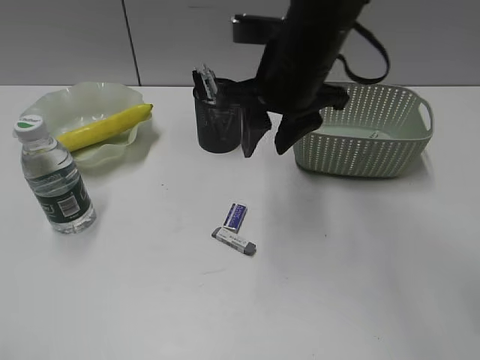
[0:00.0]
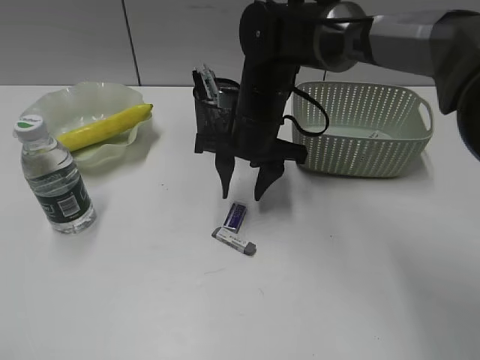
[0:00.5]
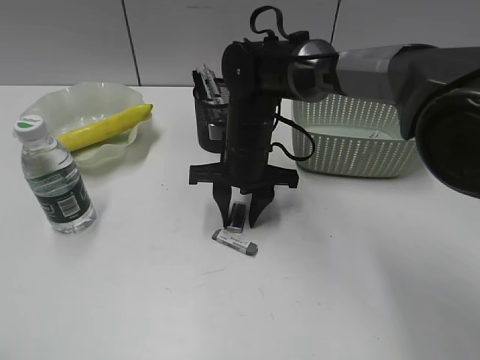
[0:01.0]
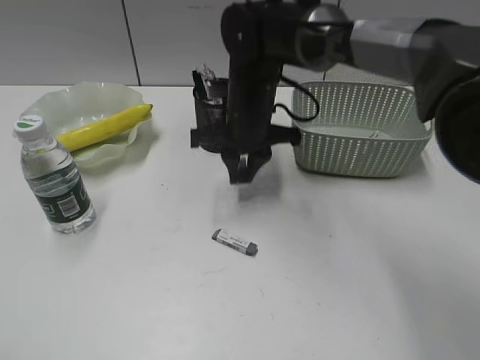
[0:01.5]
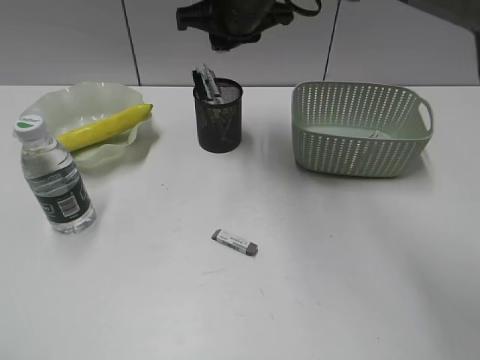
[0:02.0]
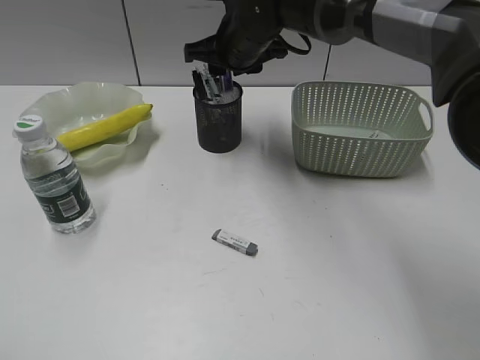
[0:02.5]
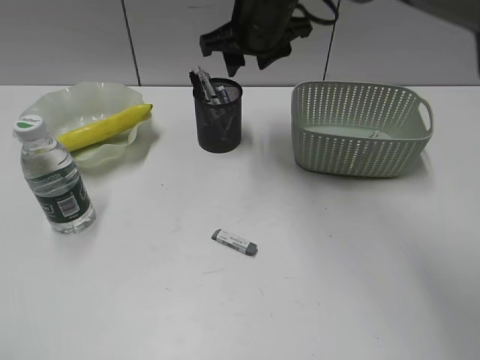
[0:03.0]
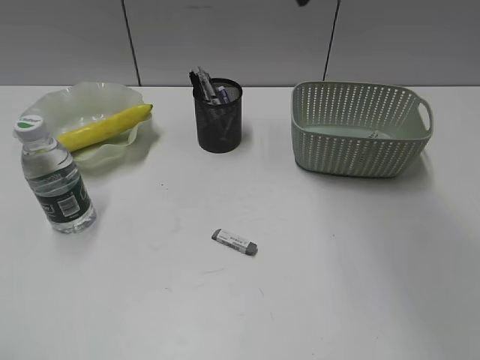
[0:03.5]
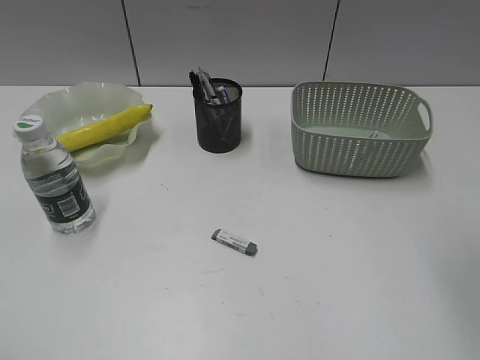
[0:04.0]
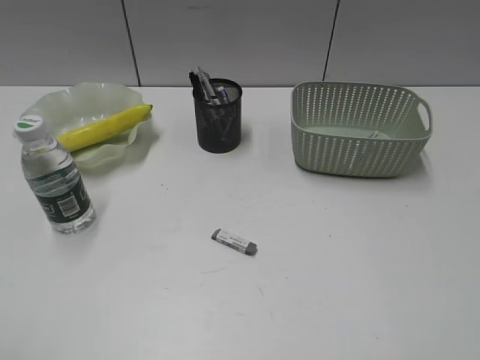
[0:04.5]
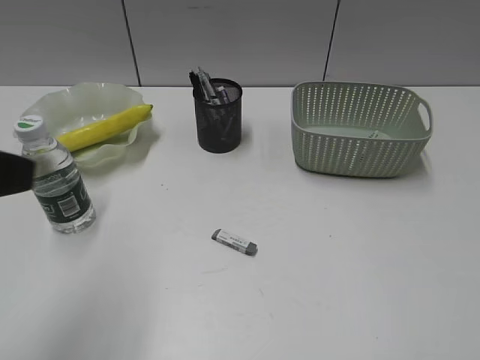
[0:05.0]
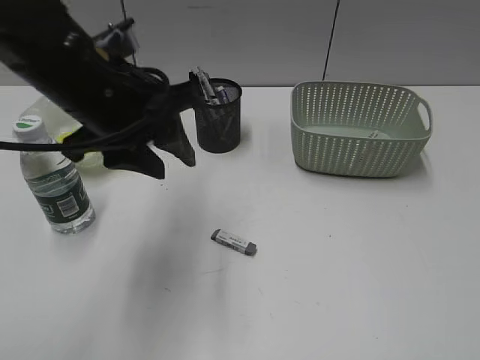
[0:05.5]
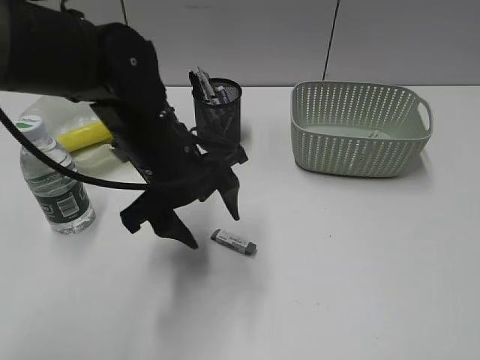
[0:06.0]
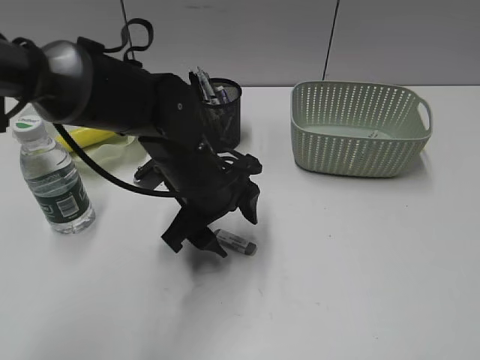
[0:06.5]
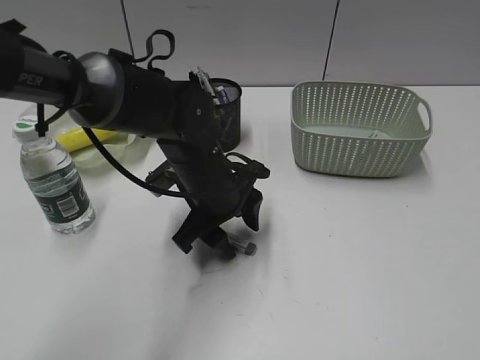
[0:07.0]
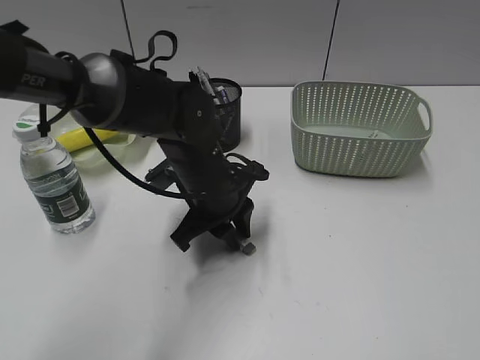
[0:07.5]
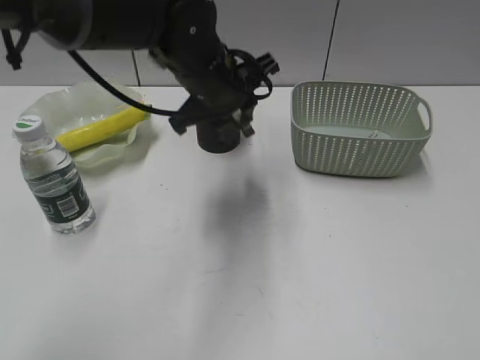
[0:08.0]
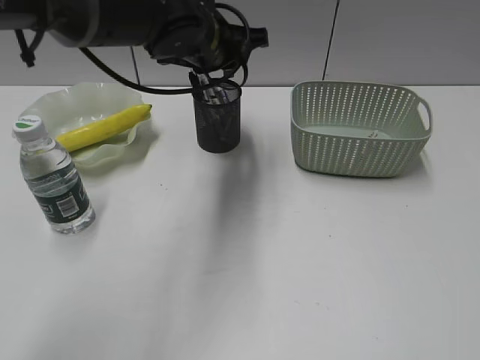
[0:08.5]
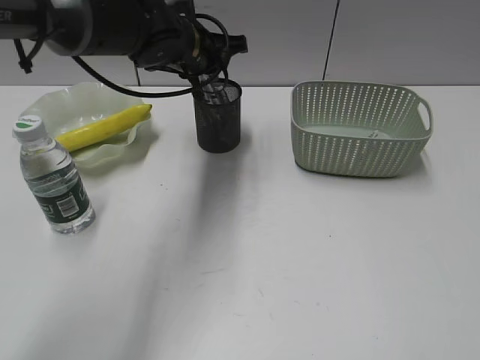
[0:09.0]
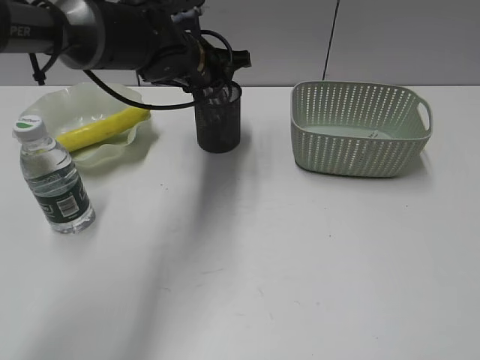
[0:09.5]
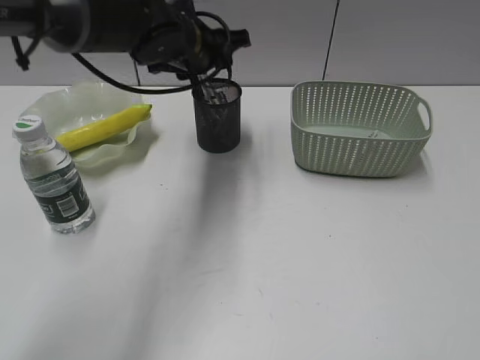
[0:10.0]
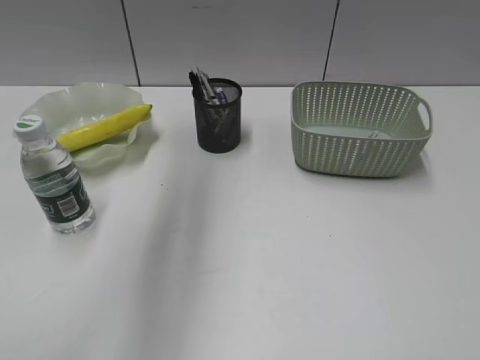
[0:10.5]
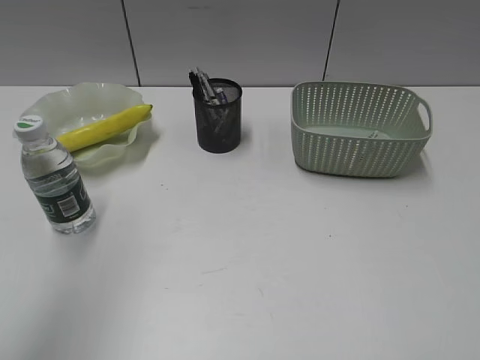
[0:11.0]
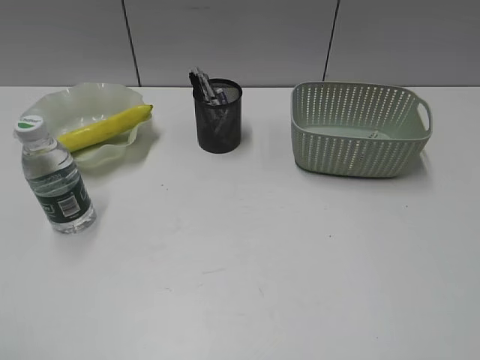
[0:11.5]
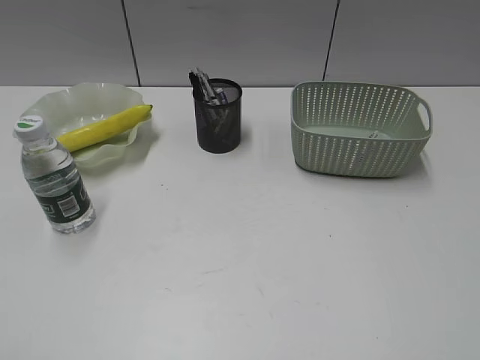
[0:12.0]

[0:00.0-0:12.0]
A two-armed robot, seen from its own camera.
Step, 0:01.5 to 0:02.5: Place the eraser in pen holder with right gripper.
Step, 0:03.0 to 0:07.5: Grasp the eraser with left gripper.
Step, 0:08.0 to 0:09.5: Place the eraser in pen holder with left gripper.
0:00.0 to 0:02.0: The right gripper moves forward and to the left, some 10 cm, moves roughly 15 cm downward and comes back, and closes up.
0:02.0 to 0:04.0: The right gripper travels backward, to the right and upward by some 35 cm, and opens.
0:04.0 to 0:06.0: The right gripper is displaced backward, to the right and downward by some 20 cm. The left gripper travels forward and to the right by some 40 cm, and opens.
0:06.0 to 0:08.0: The left gripper goes some 10 cm forward, and closes.
0:08.0 to 0:10.0: The left gripper shifts about 10 cm forward, and opens up.
0:10.0 to 0:12.0: The left gripper goes roughly 50 cm backward and to the left.

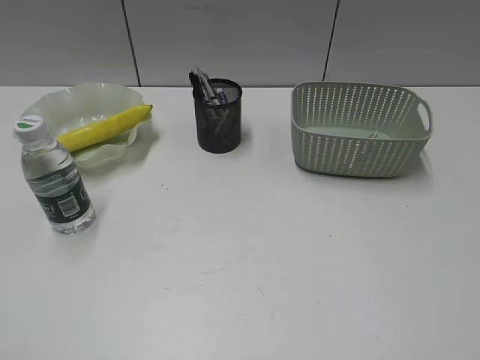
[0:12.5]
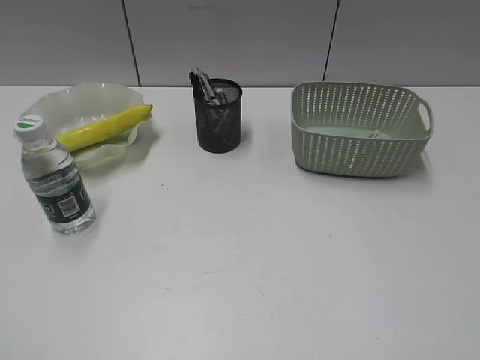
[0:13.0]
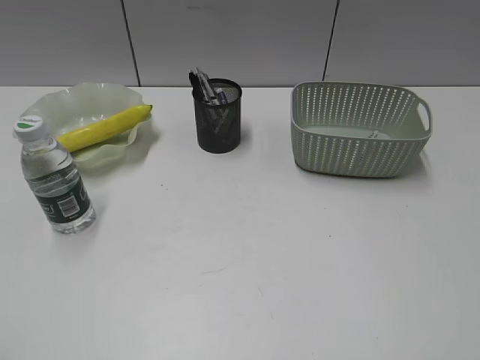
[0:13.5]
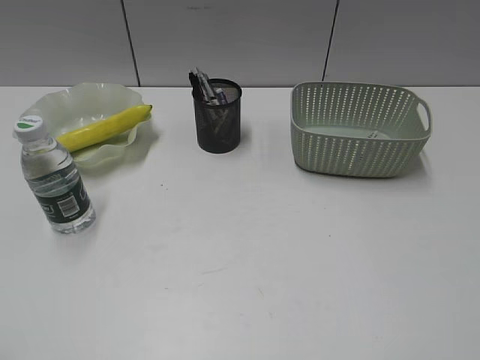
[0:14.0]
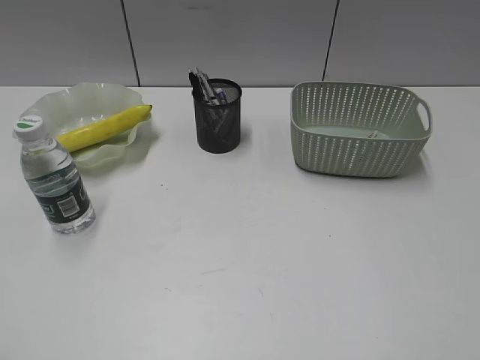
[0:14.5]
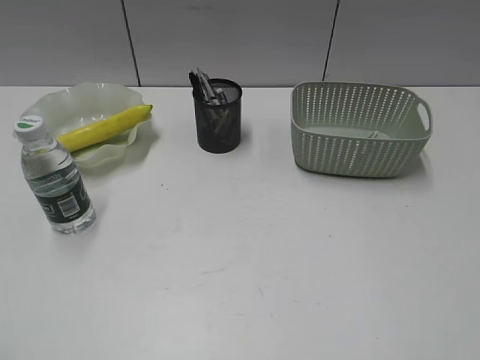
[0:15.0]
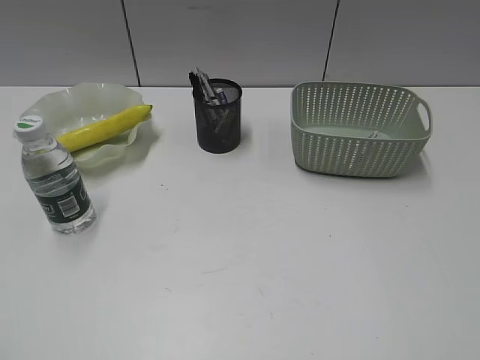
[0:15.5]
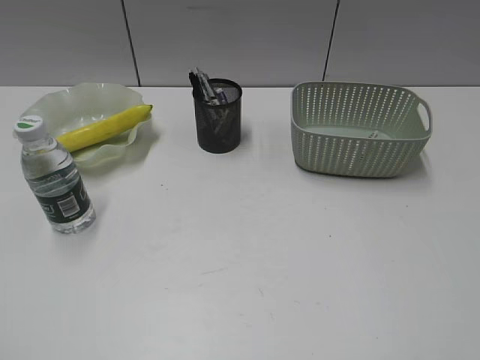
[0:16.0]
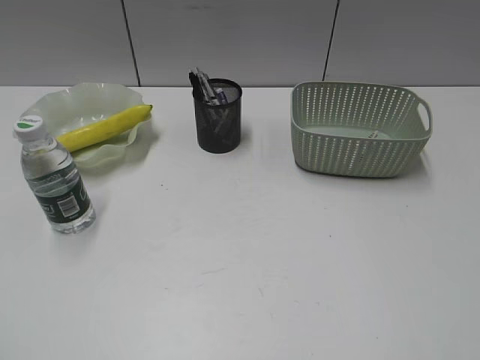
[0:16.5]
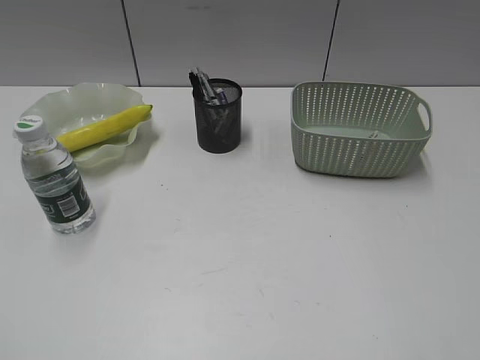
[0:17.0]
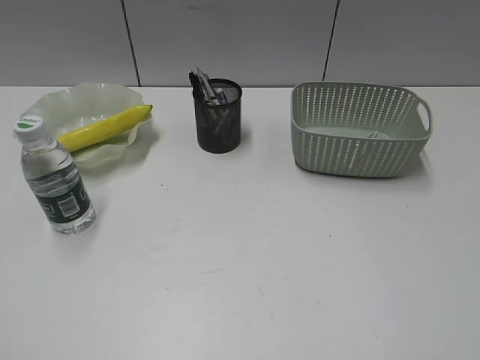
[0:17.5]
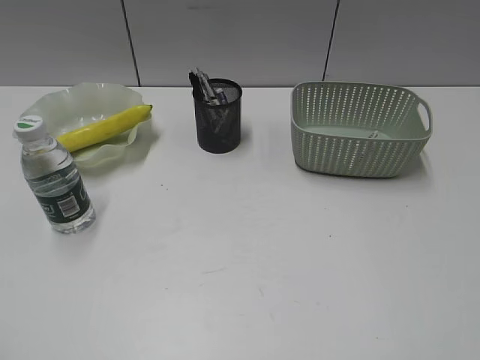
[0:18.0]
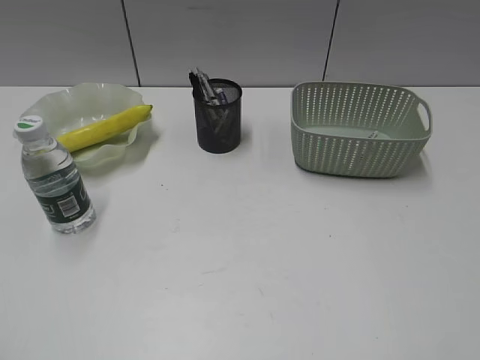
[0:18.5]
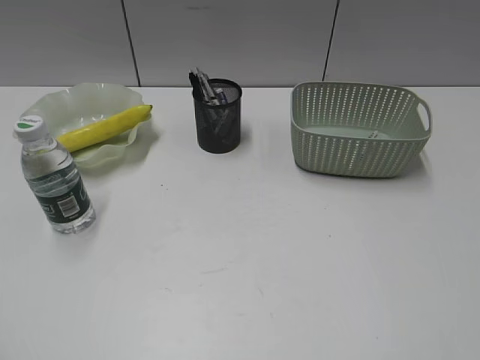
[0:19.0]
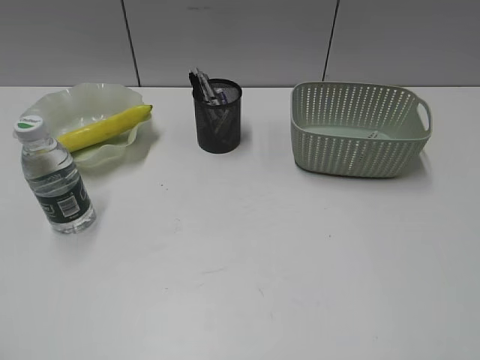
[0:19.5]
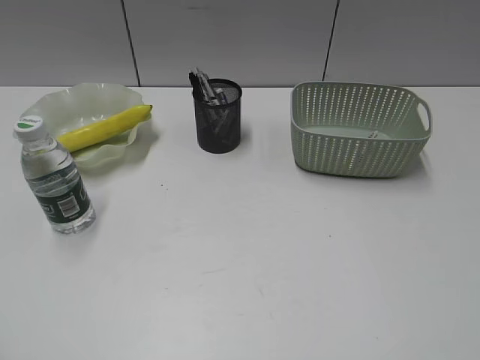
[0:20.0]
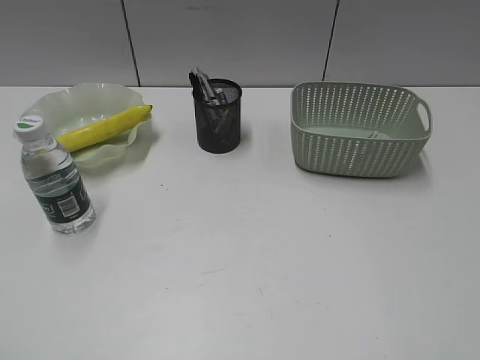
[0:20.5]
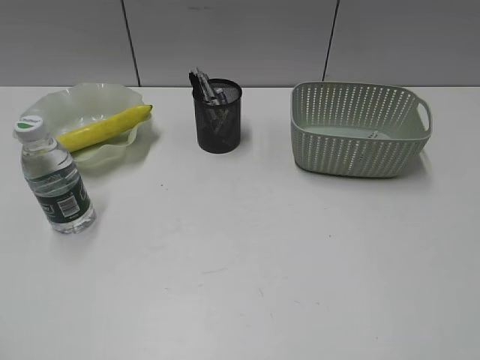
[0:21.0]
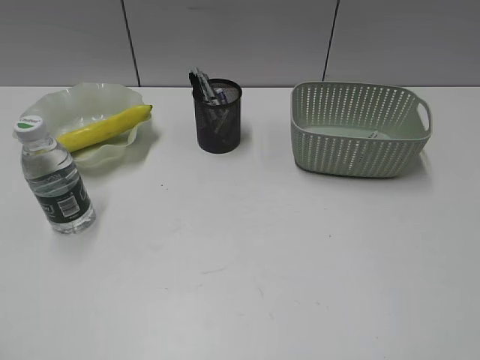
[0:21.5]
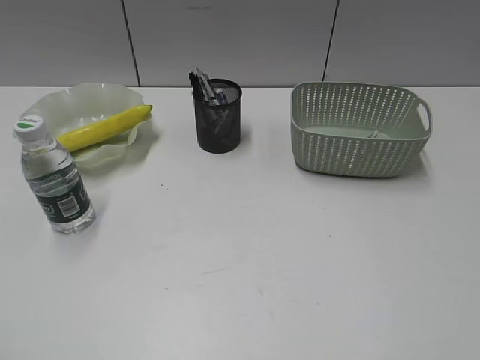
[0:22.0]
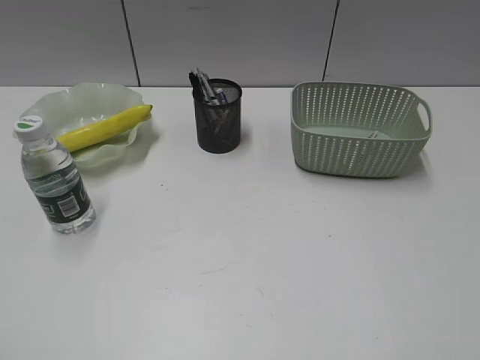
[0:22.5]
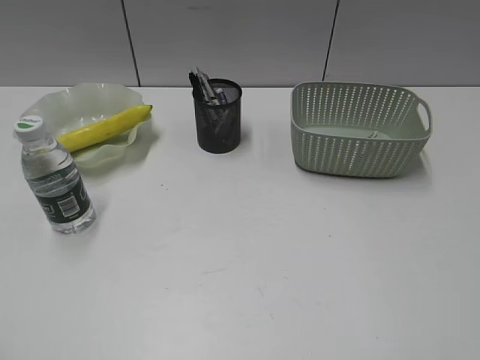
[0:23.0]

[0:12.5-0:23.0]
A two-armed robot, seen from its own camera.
0:16.5 to 0:23.0: The two grippers keep their place.

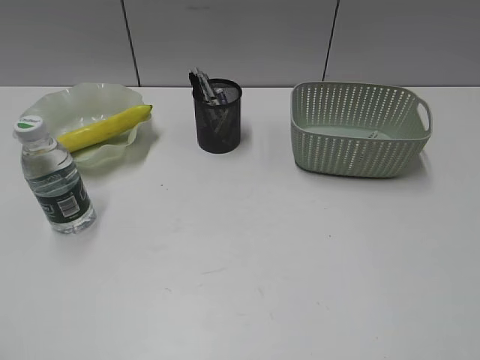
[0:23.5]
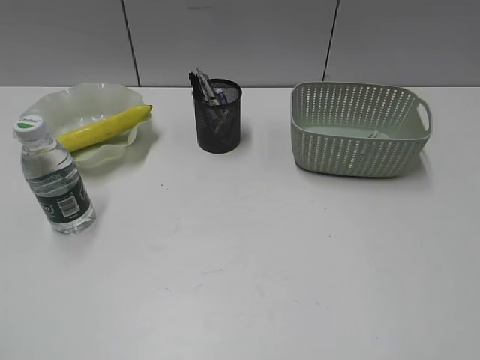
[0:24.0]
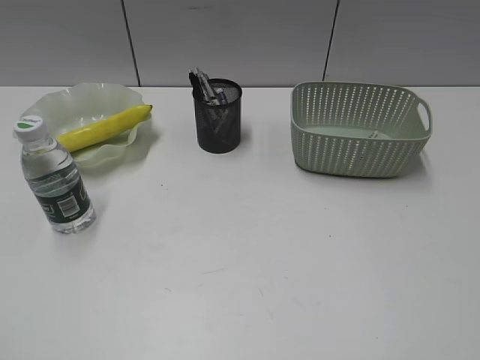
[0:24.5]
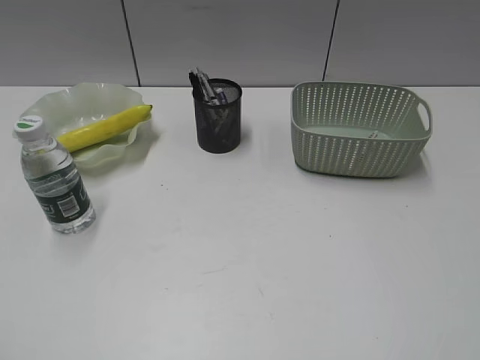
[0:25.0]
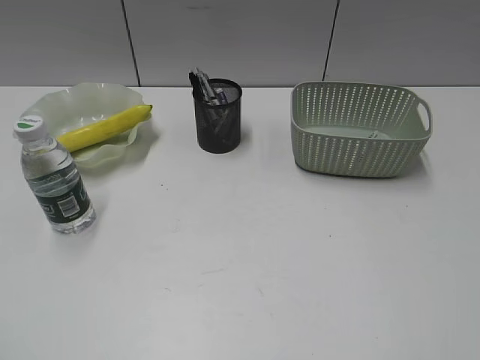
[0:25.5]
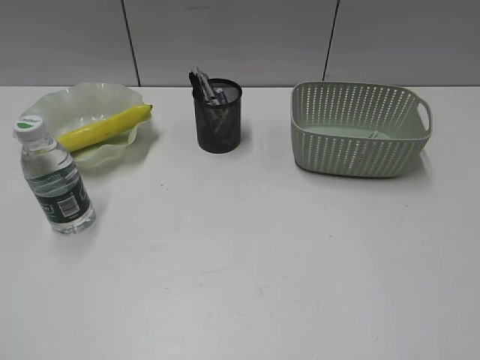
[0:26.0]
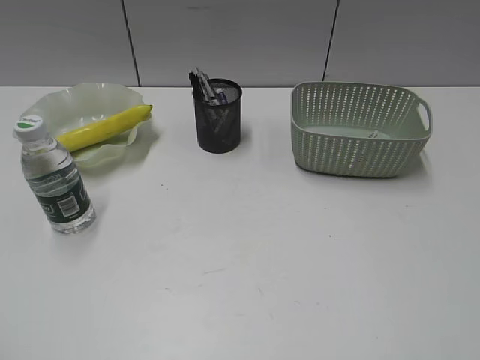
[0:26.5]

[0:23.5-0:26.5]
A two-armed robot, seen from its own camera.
0:23.5 to 0:26.5: Both grippers stay about where they are.
